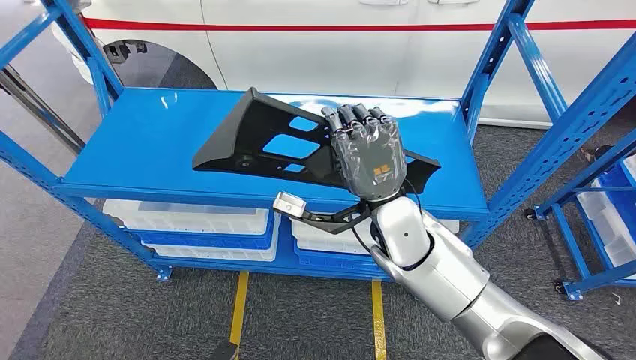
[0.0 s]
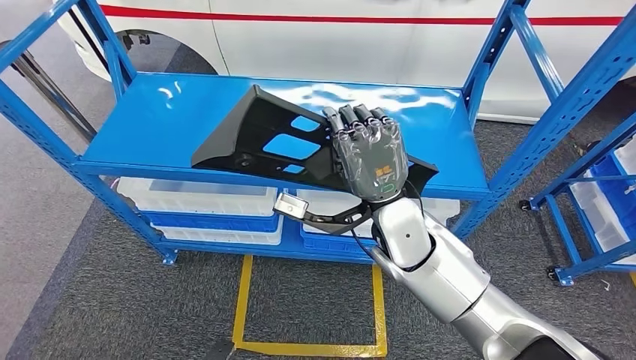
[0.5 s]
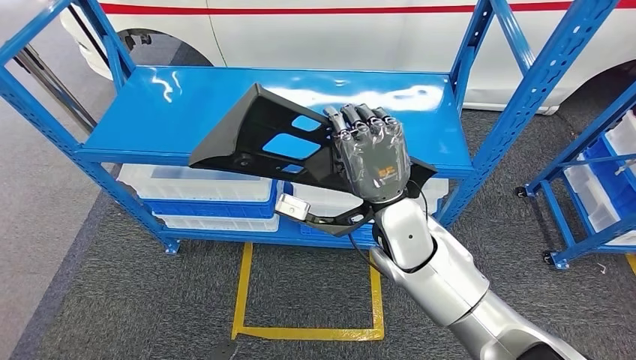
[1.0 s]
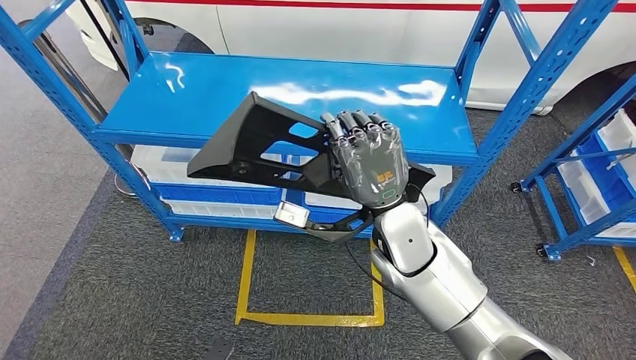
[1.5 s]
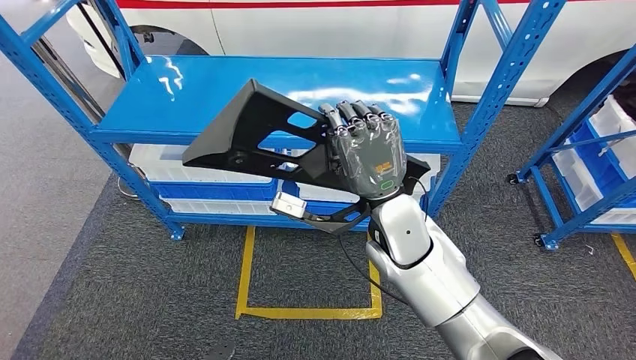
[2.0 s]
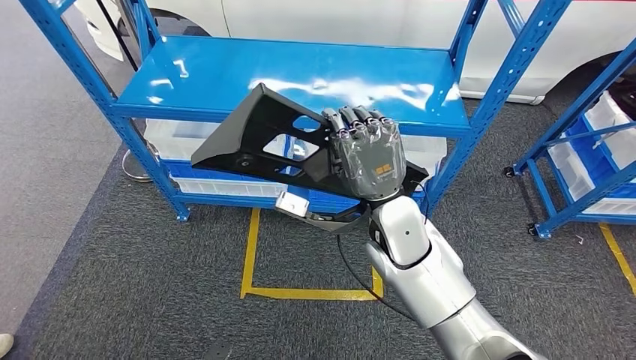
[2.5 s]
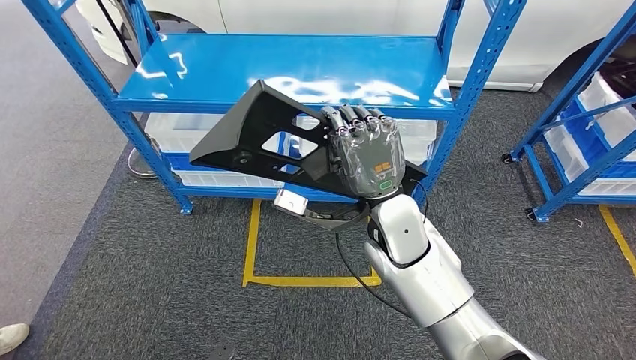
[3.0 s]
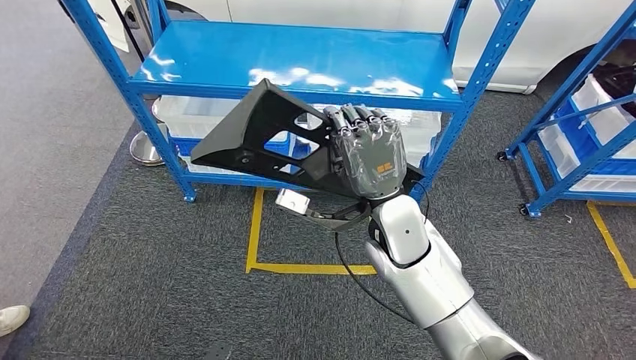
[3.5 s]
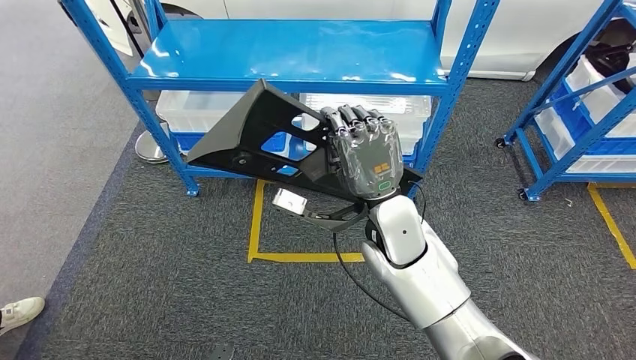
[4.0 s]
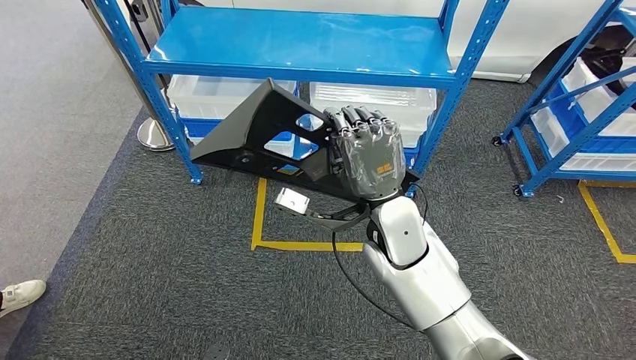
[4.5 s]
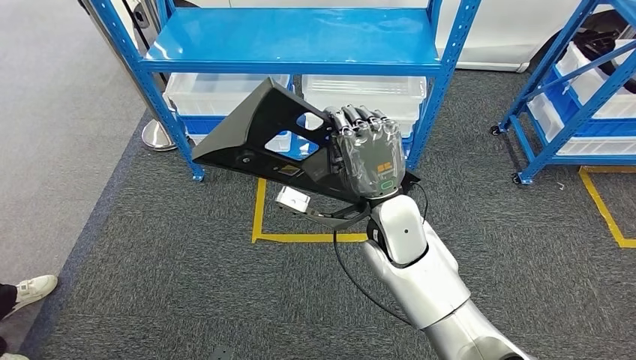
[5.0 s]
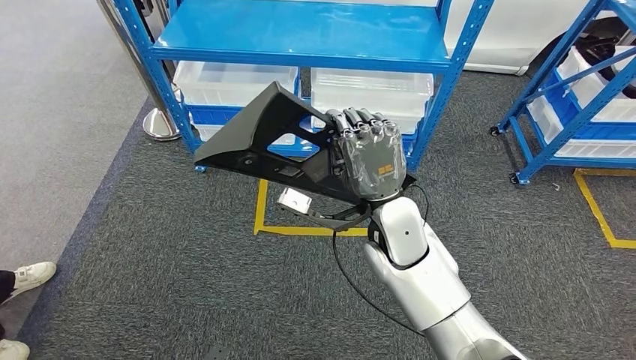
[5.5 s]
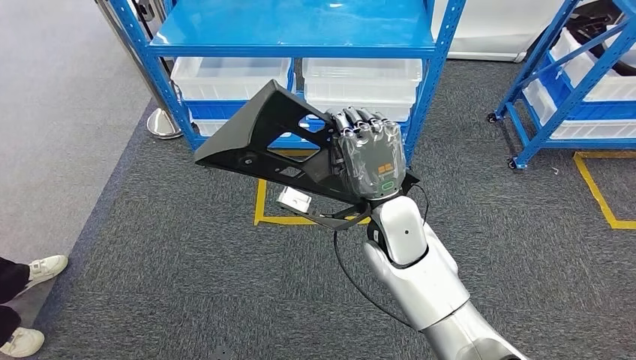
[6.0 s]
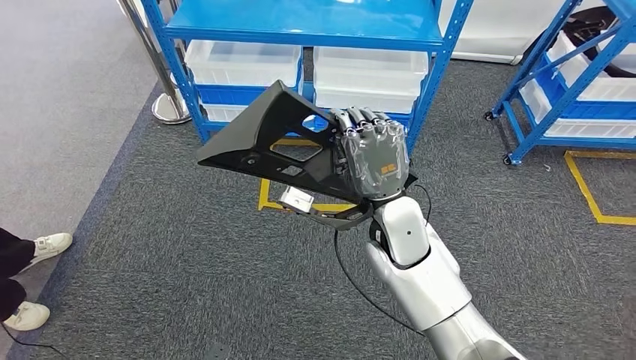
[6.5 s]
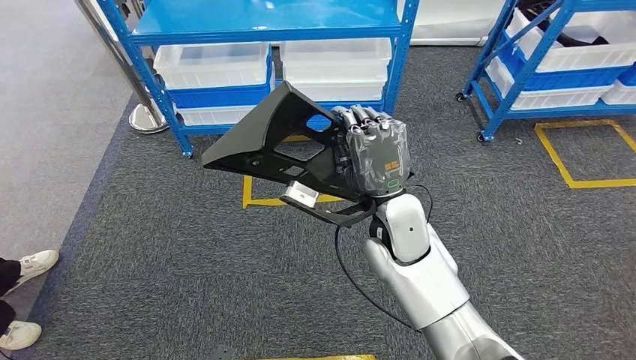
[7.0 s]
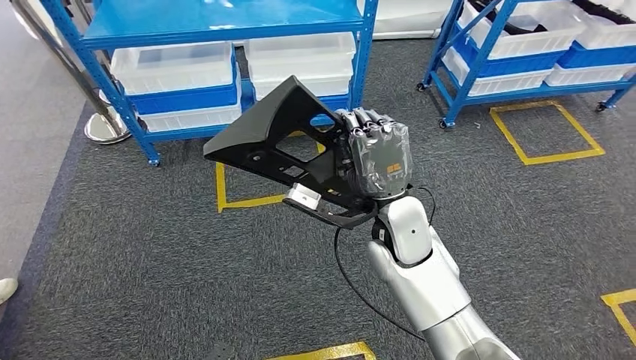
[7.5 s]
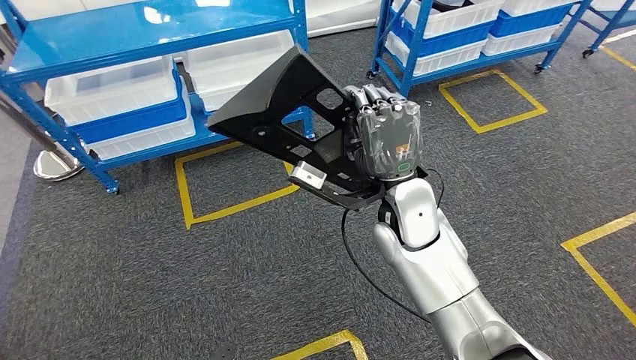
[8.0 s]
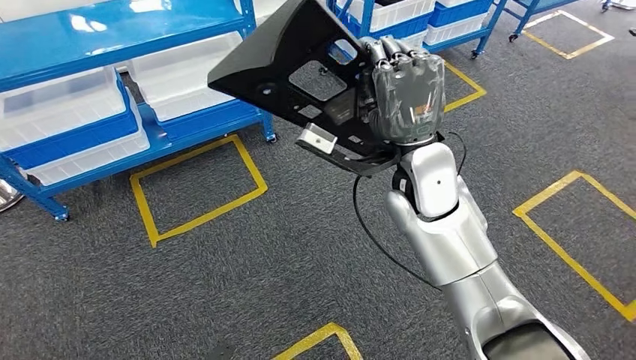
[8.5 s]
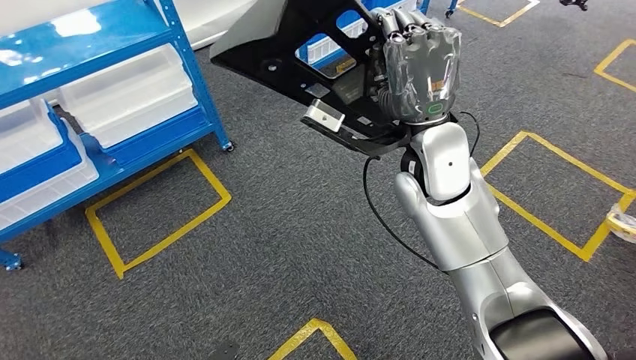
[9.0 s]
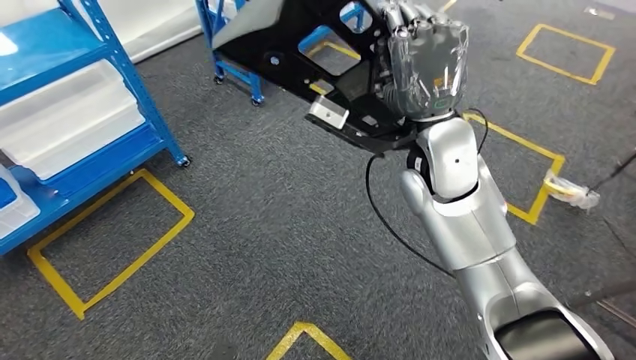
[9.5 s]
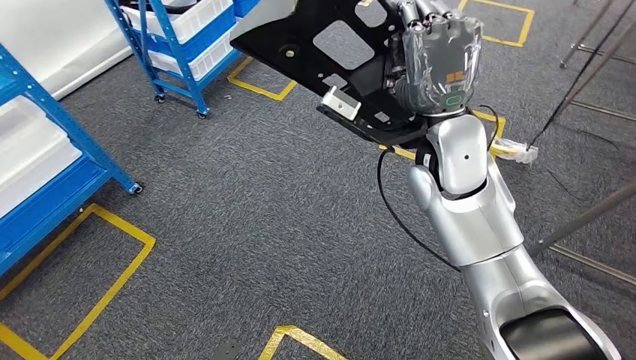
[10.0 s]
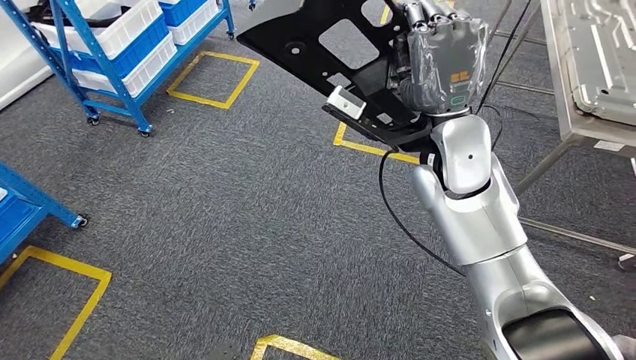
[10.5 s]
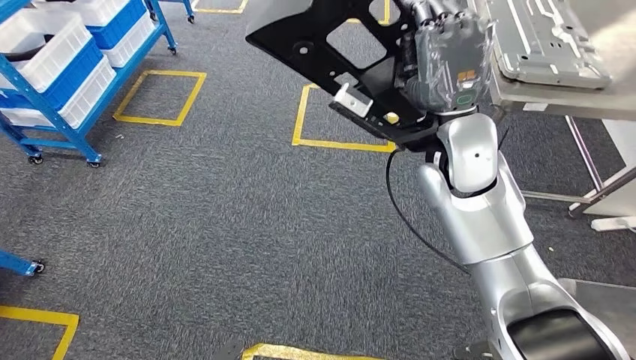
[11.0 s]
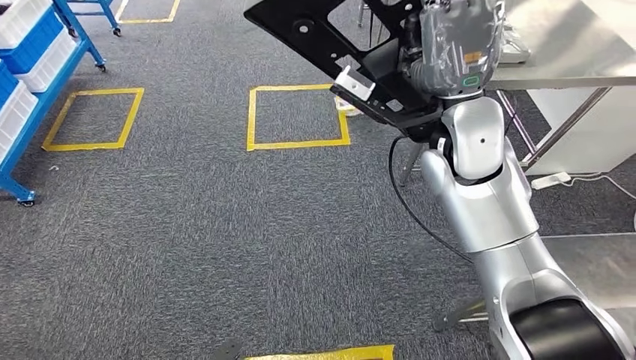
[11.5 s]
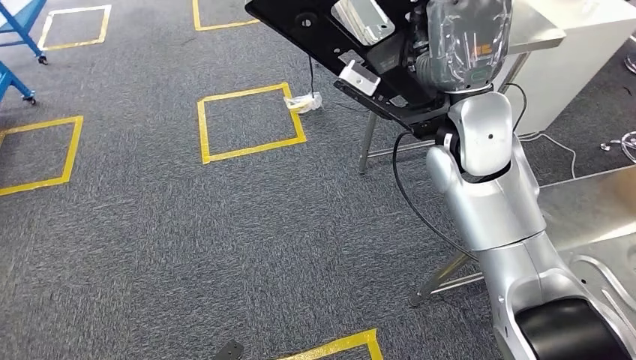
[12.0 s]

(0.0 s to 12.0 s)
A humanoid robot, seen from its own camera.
Step, 0.0 s - 3.5 s: Pick up the large material from the shelf.

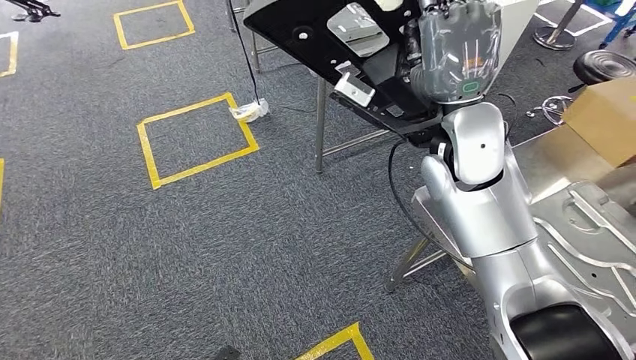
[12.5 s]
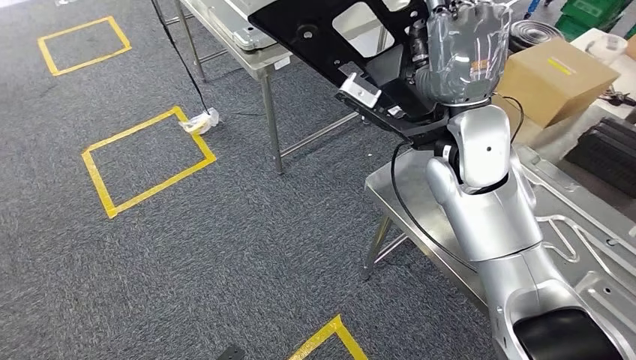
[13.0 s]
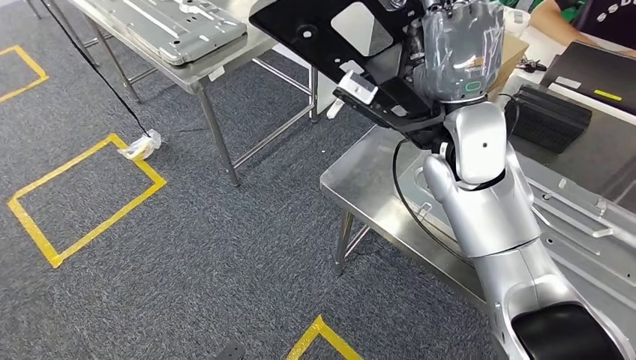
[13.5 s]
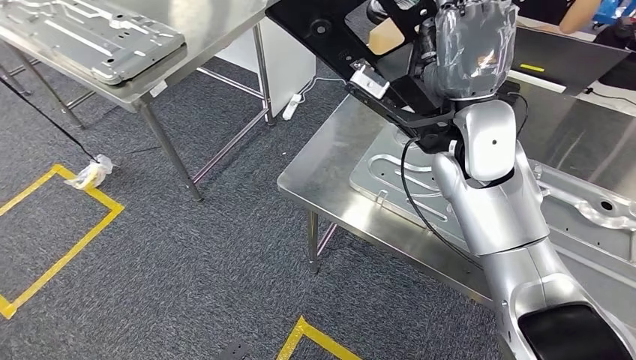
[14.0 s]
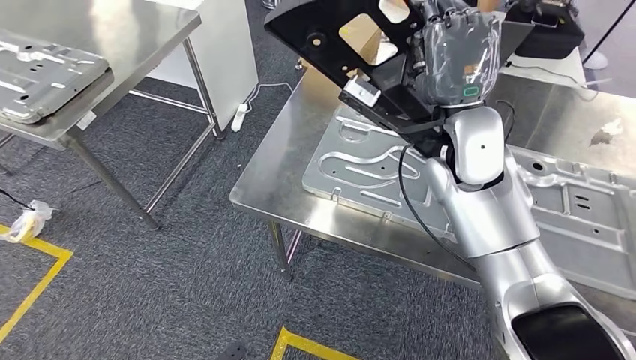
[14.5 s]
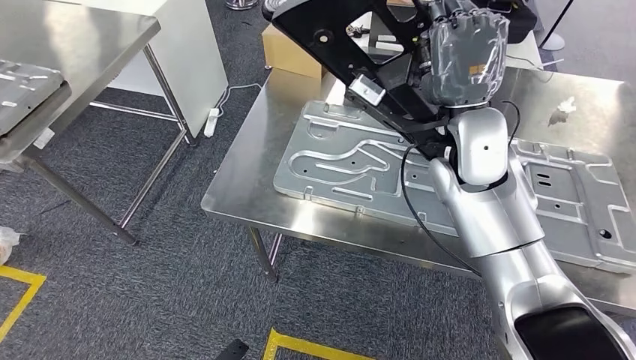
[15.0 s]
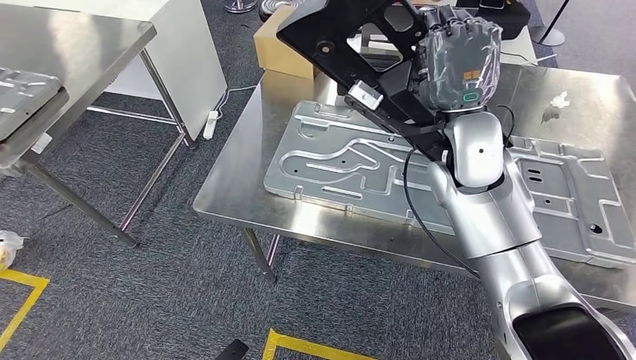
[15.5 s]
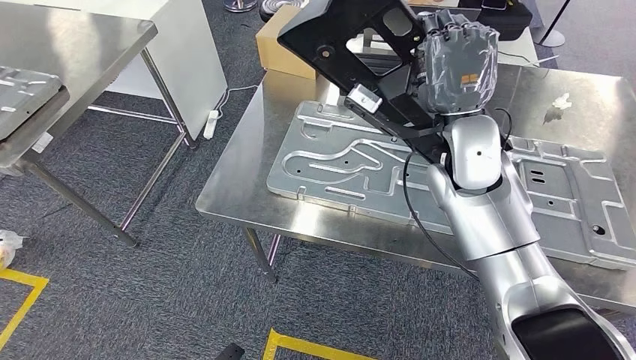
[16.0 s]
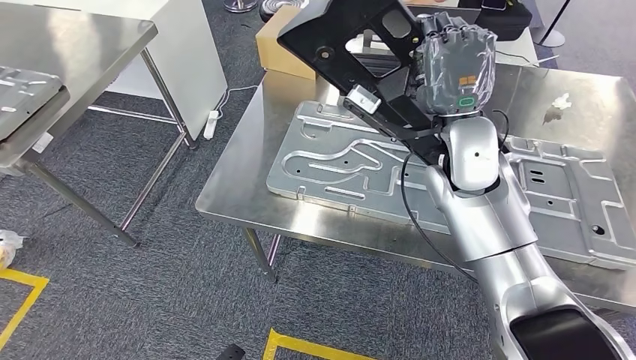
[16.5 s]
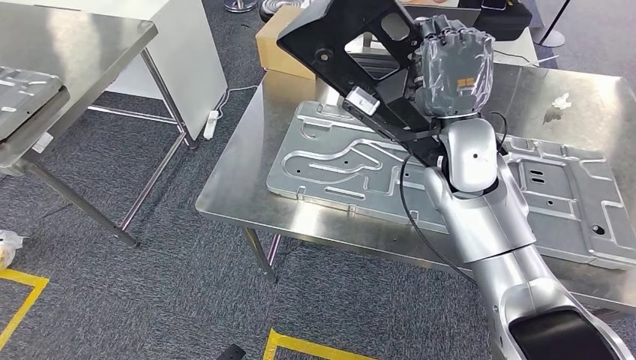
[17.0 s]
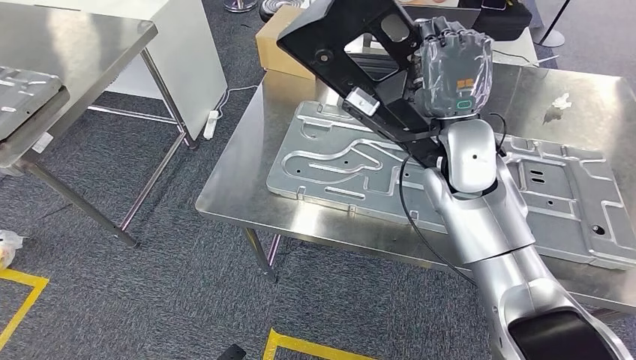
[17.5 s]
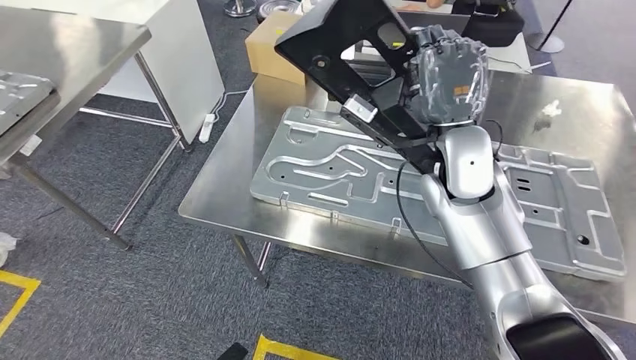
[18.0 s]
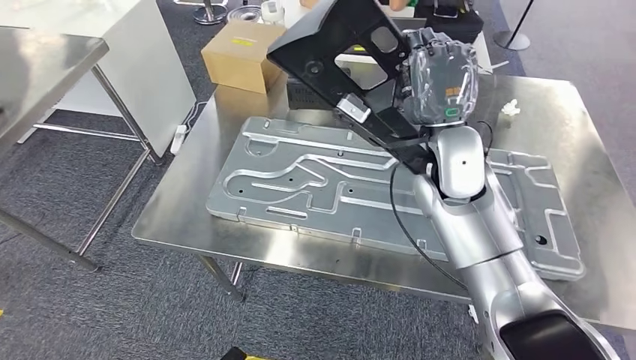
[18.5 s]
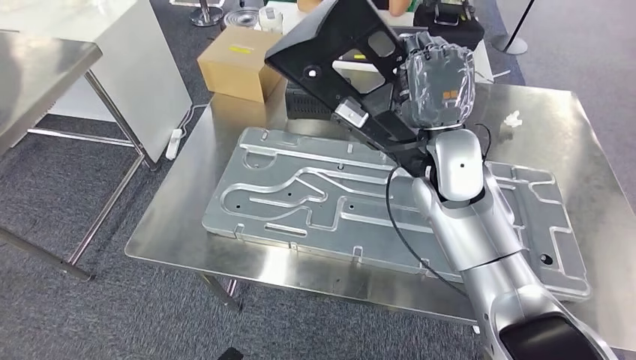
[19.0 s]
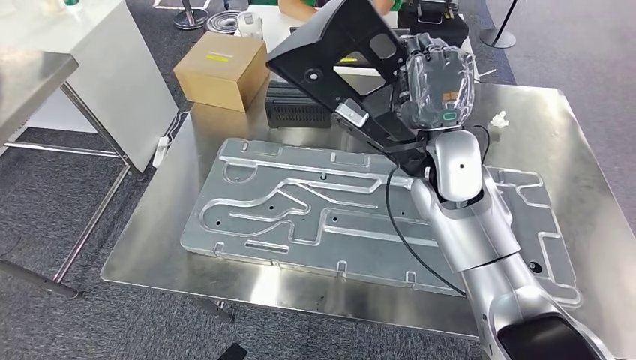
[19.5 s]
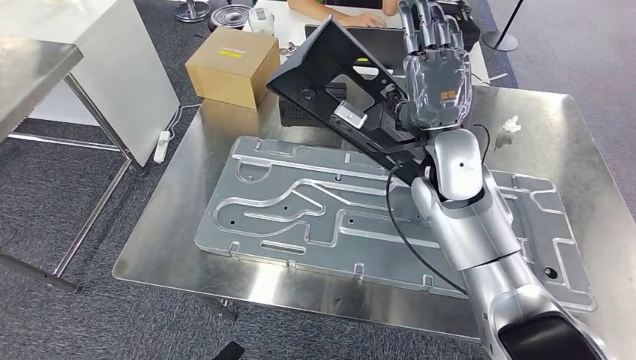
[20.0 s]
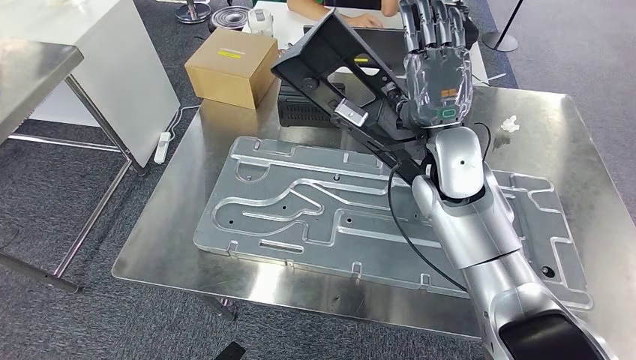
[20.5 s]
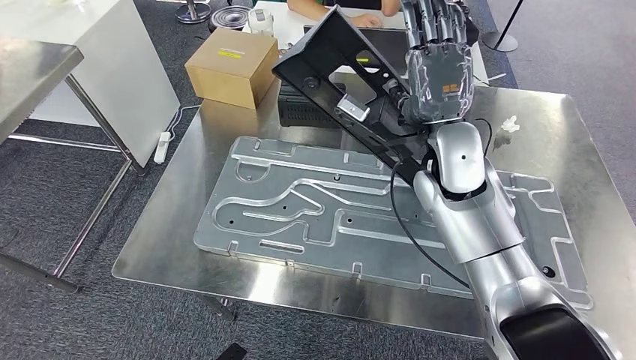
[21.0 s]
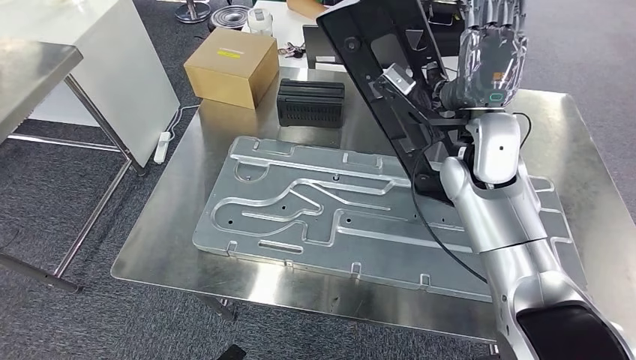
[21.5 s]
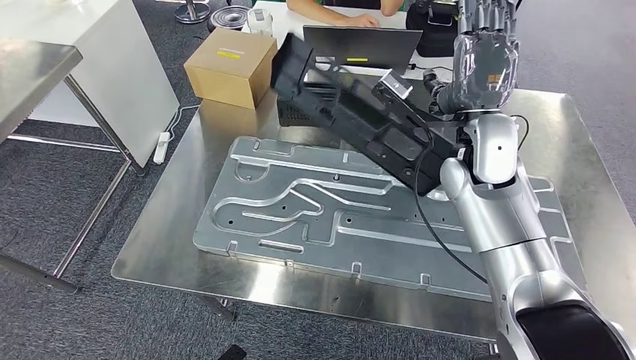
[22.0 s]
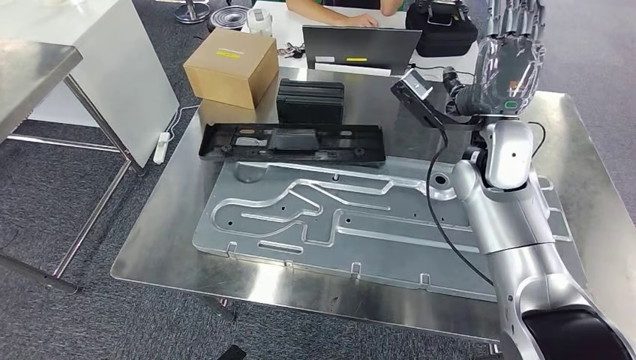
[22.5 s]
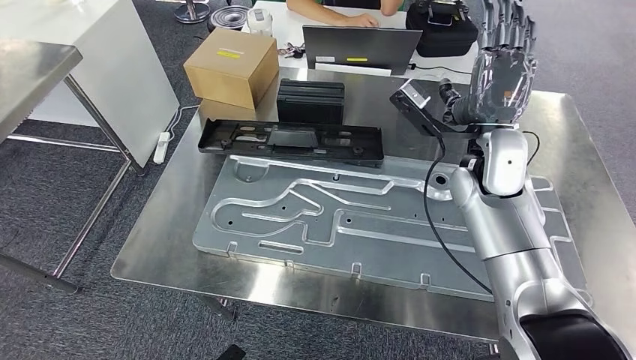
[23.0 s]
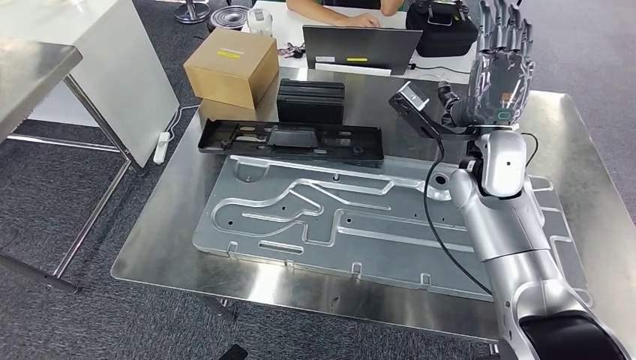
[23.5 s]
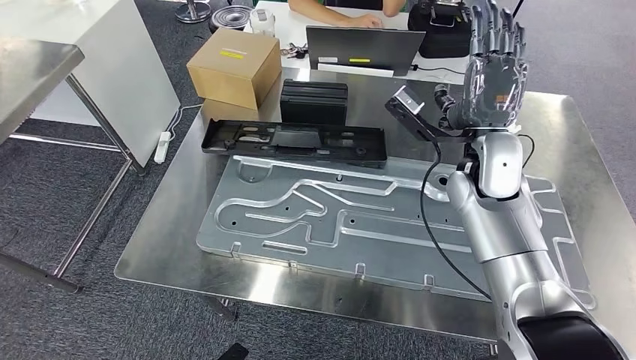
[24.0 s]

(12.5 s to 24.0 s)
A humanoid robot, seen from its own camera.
22.0 s - 24.0 s: The hands move only a little.
